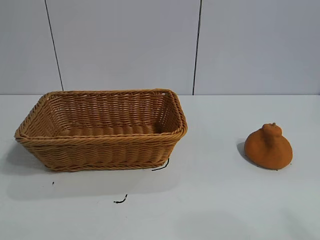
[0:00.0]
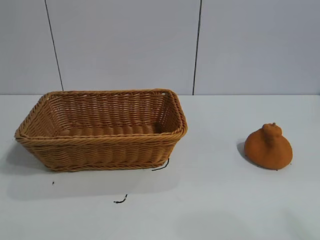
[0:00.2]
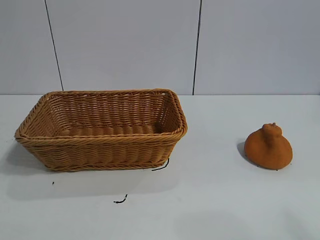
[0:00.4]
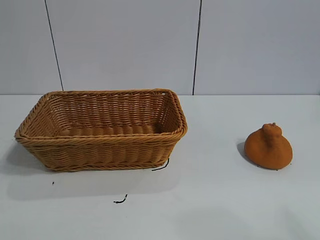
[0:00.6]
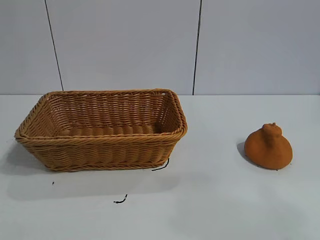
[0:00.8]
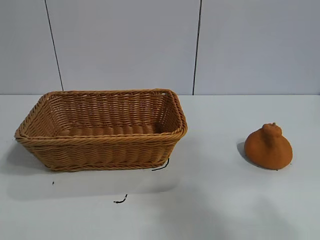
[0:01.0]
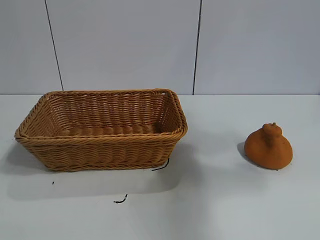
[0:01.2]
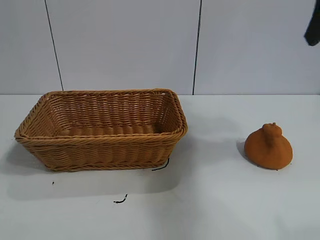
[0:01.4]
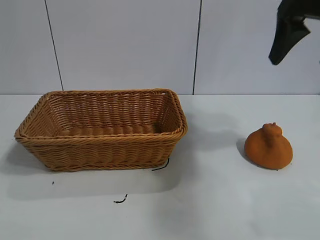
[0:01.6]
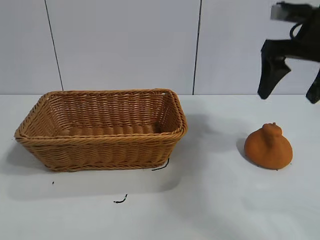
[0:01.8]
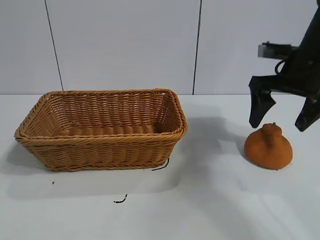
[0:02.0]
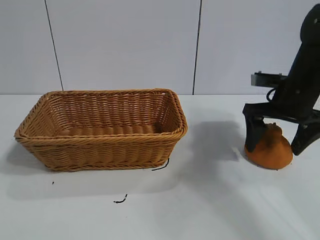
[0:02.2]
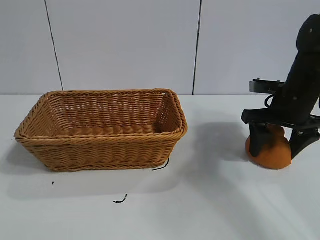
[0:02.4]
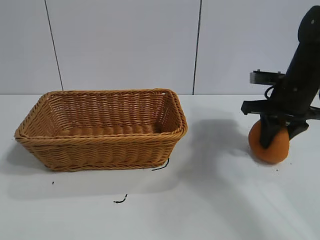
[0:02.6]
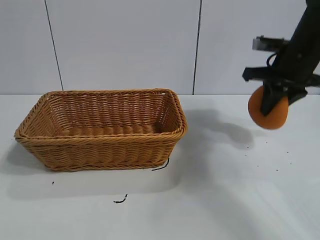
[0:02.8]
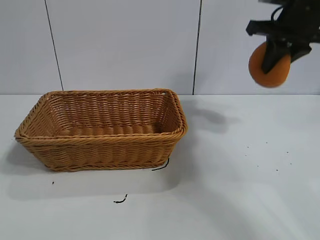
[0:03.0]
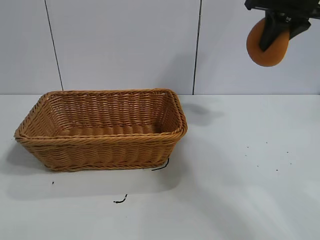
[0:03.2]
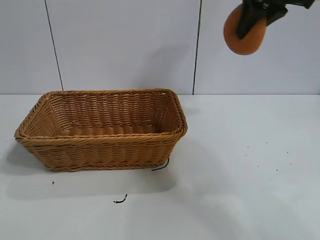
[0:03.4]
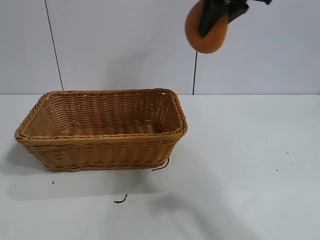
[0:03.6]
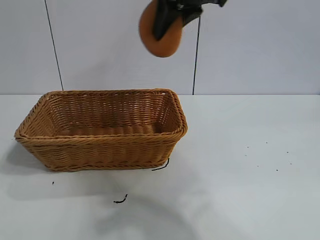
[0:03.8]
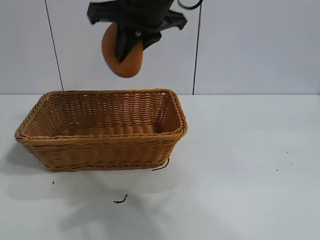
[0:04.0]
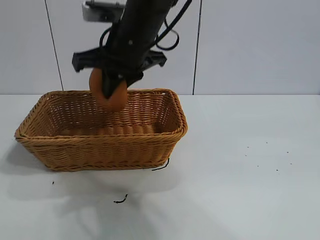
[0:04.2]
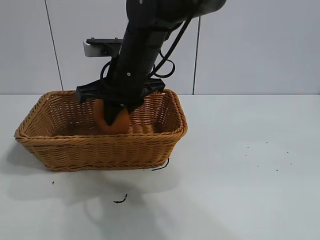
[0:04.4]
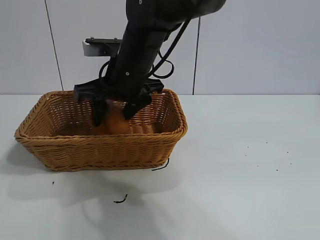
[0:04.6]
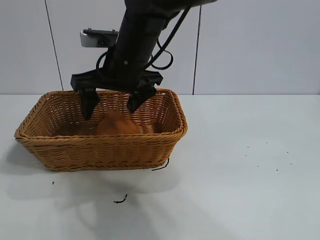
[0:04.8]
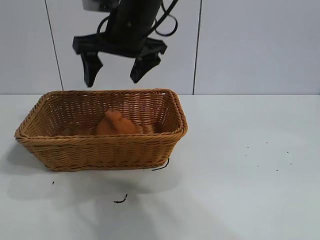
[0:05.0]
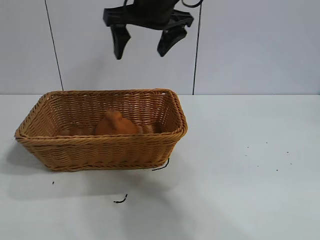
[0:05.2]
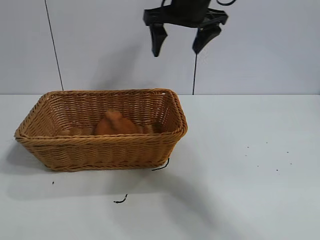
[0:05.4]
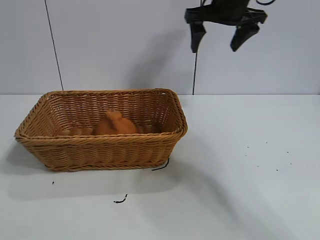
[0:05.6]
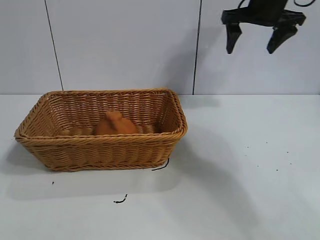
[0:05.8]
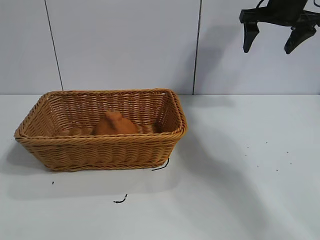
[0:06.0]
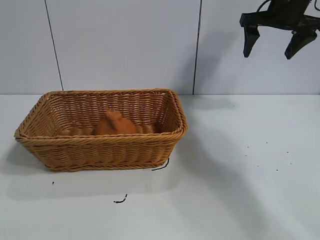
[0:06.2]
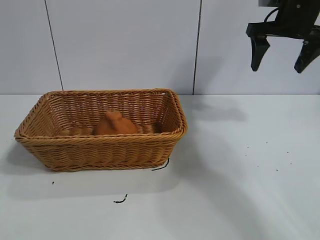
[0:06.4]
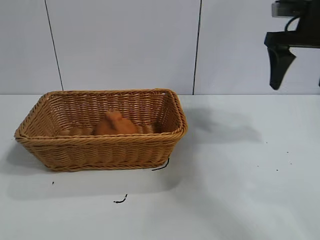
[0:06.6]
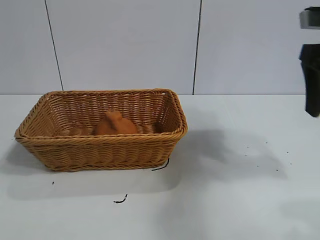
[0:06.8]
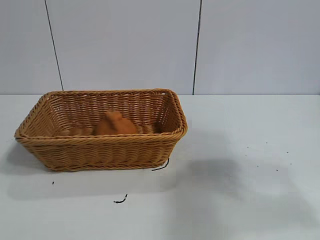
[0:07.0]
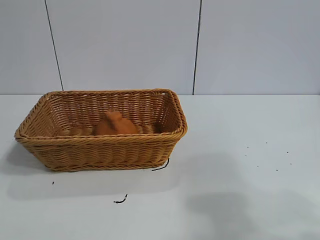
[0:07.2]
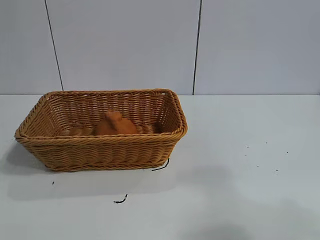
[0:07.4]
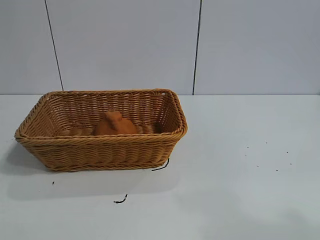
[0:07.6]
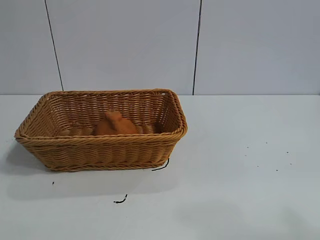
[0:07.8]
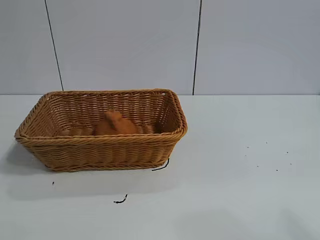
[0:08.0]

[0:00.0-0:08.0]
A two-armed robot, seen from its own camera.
Task of the whole recording: pick up the orange and put it into the basket.
Step, 0:00.6 to 0:02.6: Grasp the orange with right gripper.
Step, 0:02.8 to 0:04.6: Place the orange in the basket with right gripper.

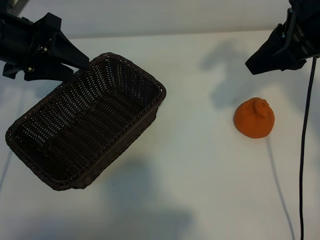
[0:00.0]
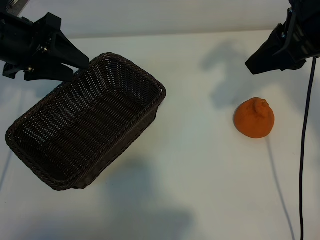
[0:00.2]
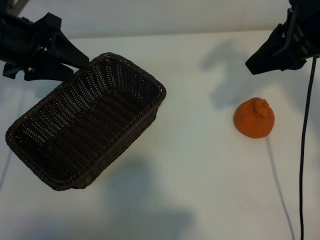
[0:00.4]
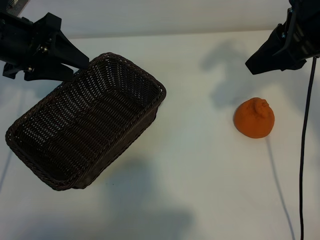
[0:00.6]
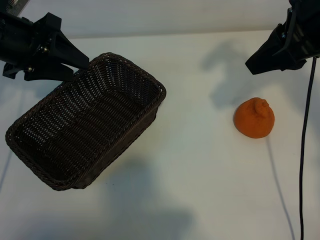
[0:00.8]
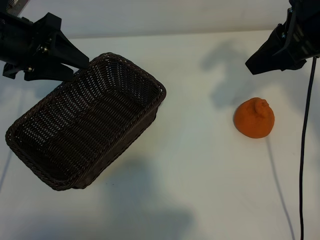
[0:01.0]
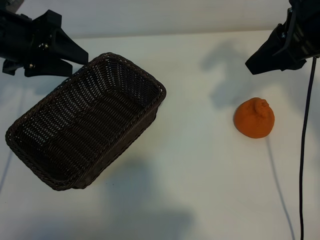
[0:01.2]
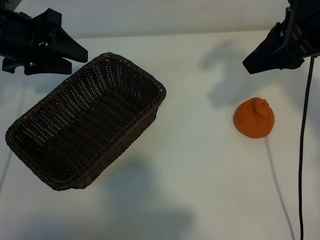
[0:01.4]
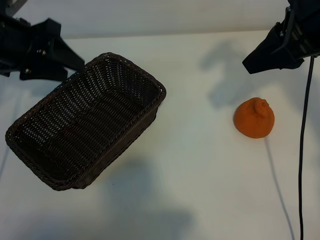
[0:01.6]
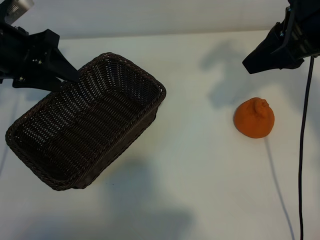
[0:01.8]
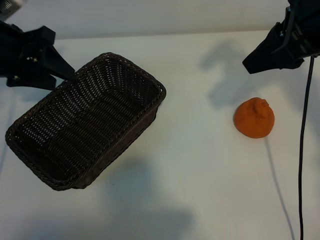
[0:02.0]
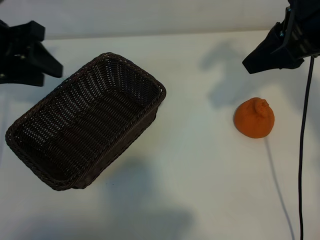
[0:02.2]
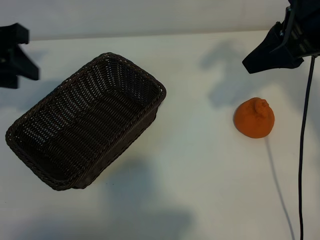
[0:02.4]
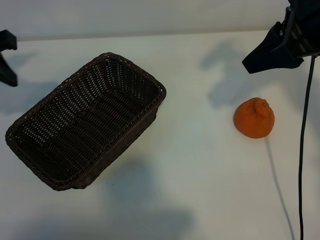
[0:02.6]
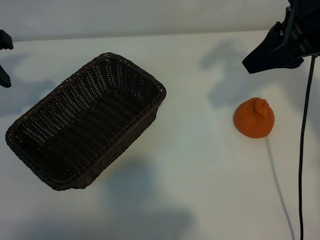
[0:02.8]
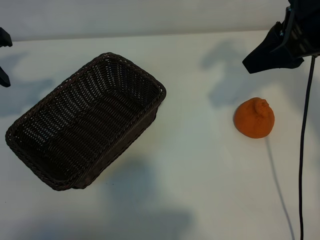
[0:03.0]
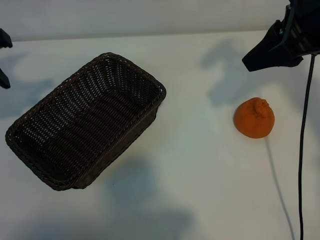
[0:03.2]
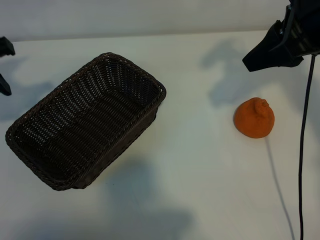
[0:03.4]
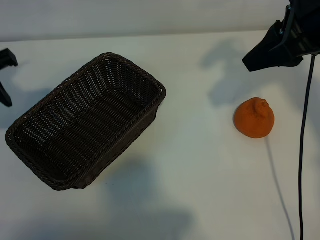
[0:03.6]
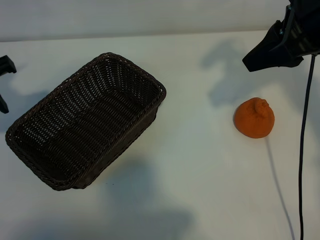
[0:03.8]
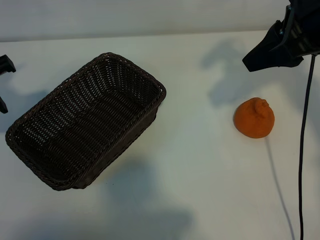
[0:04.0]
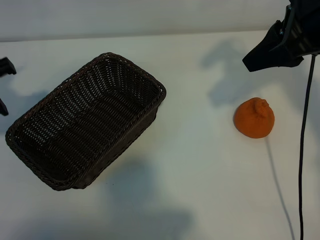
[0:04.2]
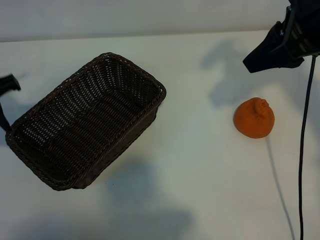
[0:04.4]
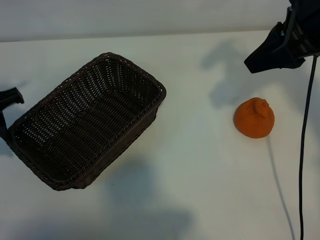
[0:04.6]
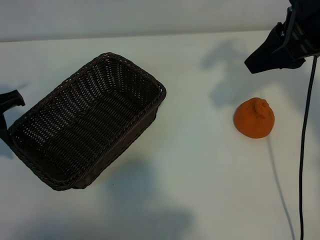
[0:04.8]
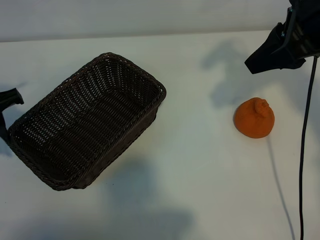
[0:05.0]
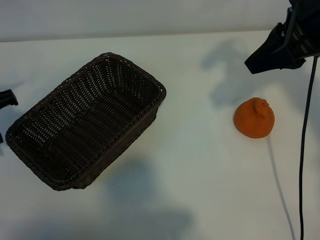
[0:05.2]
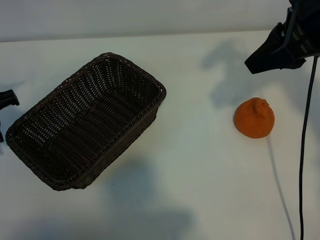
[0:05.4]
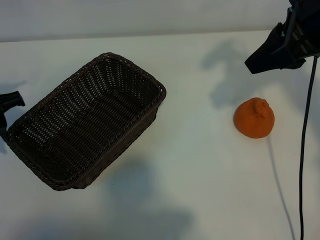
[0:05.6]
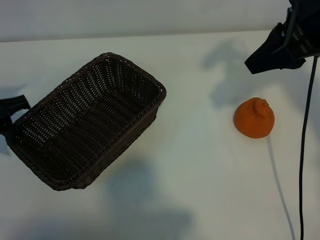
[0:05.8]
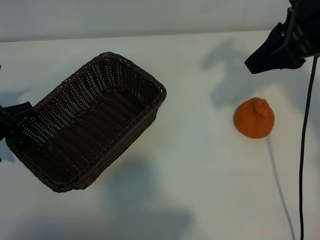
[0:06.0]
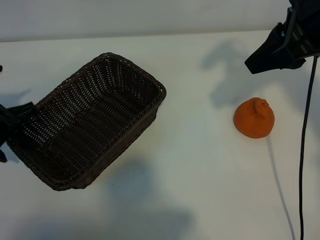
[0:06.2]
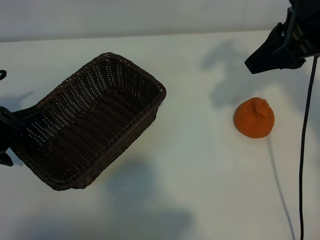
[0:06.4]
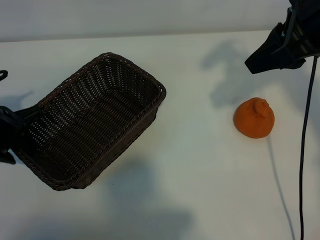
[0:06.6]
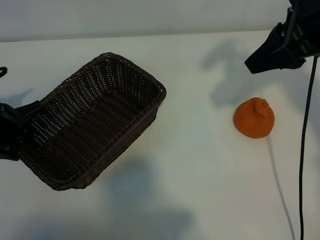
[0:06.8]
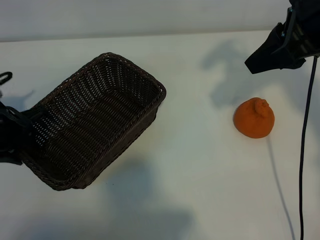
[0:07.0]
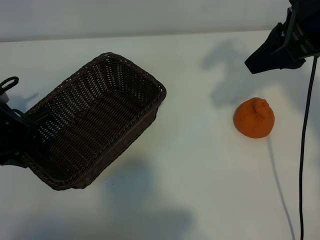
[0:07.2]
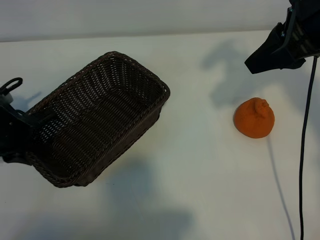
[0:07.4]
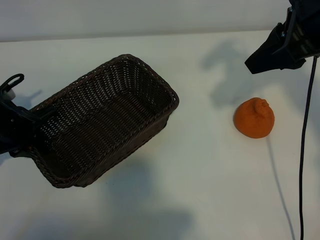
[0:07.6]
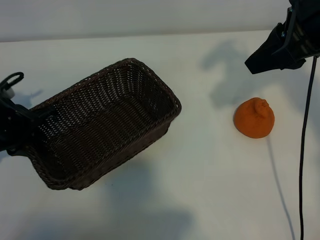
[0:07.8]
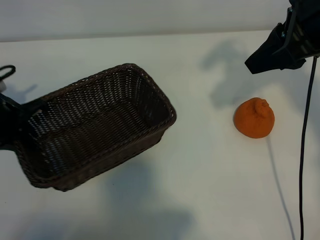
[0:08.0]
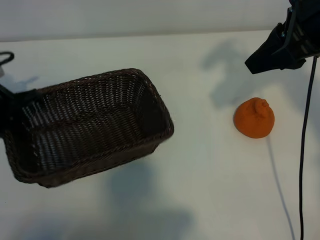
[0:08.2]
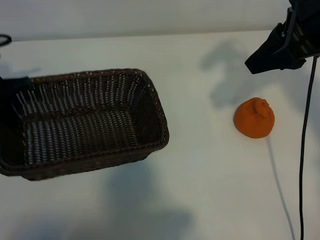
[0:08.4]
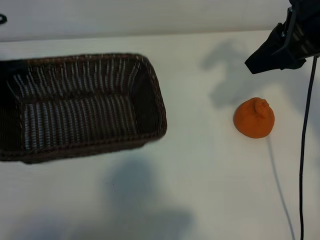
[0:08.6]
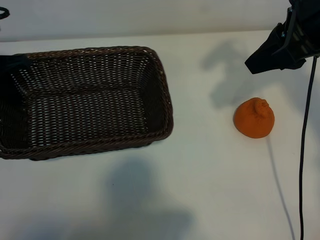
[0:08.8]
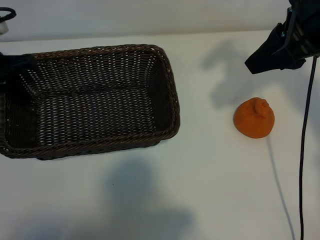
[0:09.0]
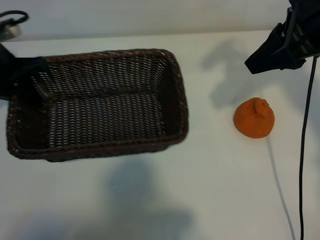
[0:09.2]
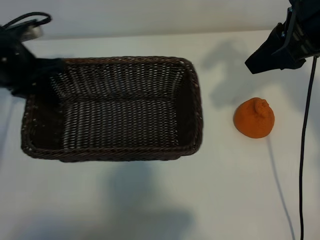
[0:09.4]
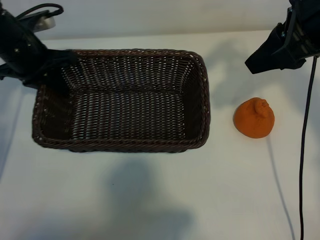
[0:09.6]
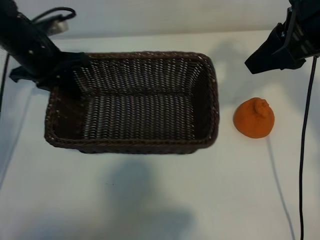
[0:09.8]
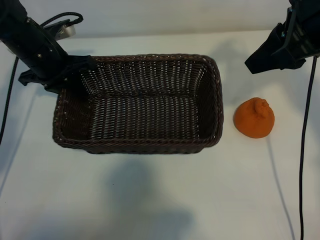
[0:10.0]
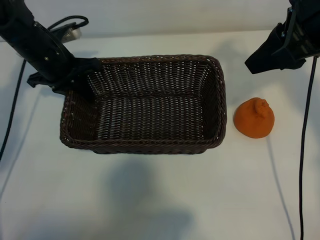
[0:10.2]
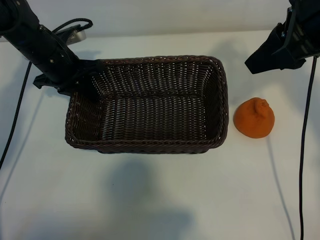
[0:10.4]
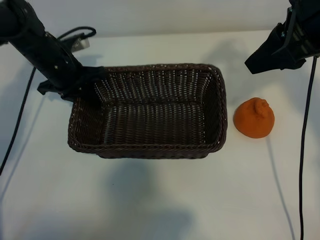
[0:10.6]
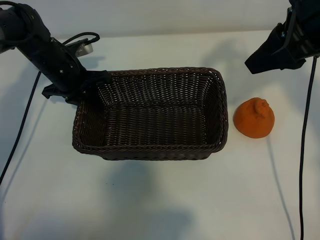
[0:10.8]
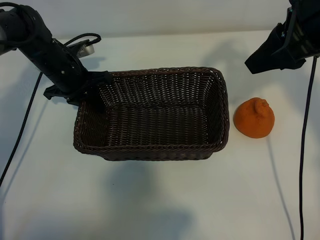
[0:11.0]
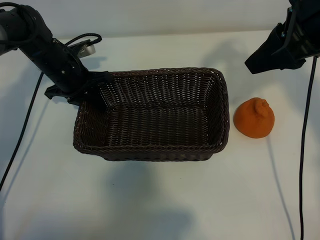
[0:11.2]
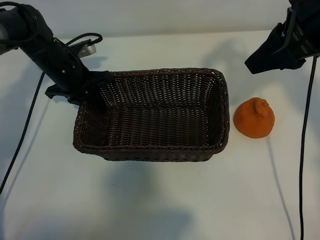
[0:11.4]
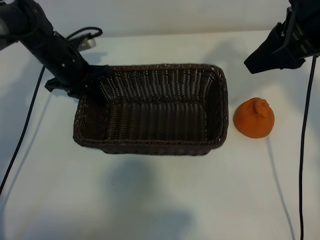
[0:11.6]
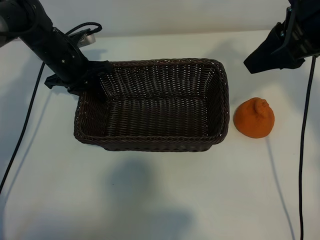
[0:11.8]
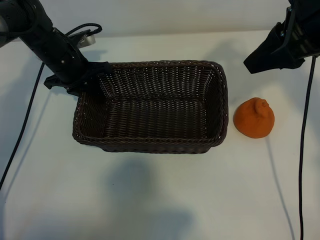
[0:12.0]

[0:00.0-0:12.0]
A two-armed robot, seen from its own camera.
Task of the whole recording: pick up the orange and put it into the basket.
Step, 0:01.0 to 0:07.6: Grasp the basket with left gripper.

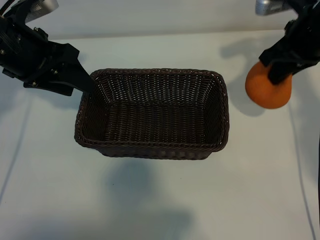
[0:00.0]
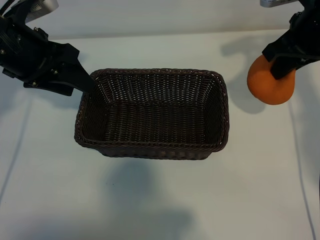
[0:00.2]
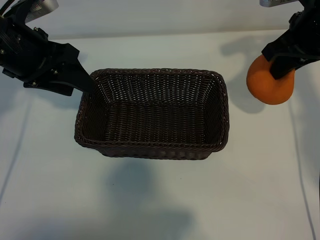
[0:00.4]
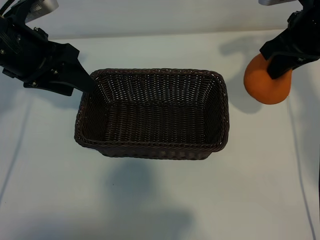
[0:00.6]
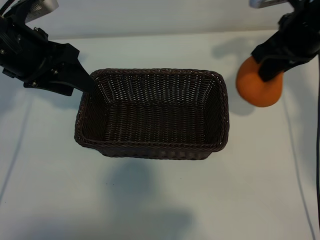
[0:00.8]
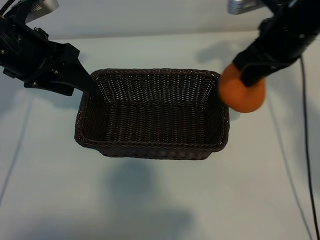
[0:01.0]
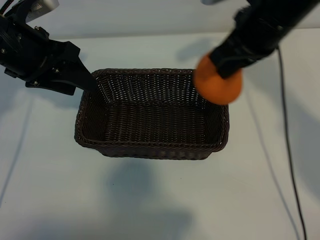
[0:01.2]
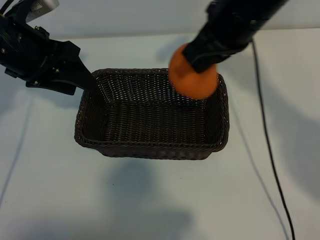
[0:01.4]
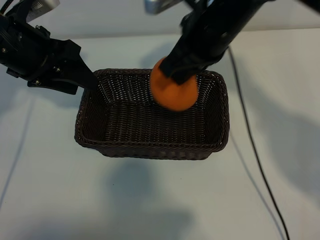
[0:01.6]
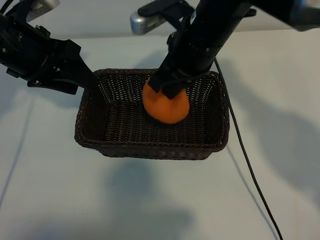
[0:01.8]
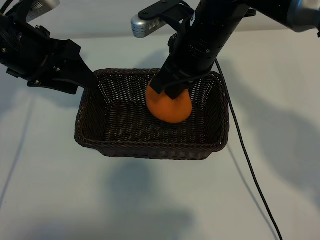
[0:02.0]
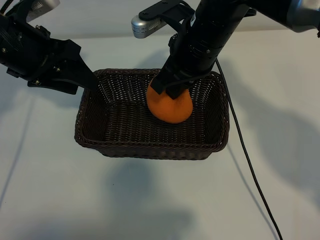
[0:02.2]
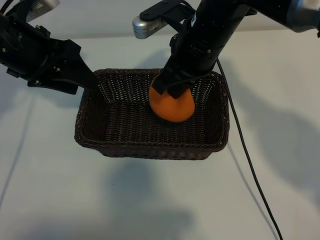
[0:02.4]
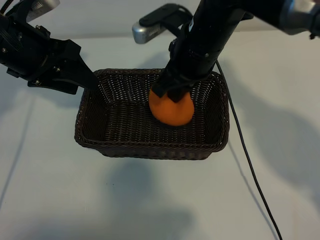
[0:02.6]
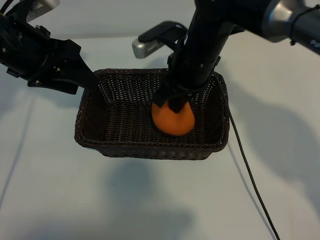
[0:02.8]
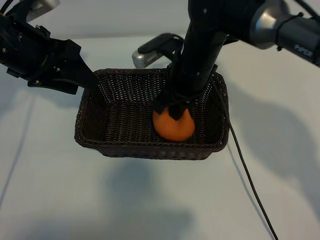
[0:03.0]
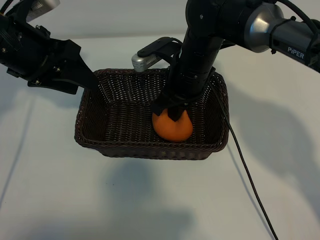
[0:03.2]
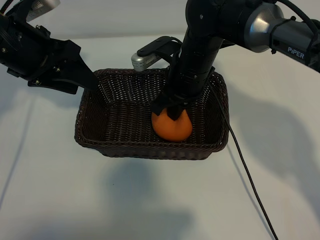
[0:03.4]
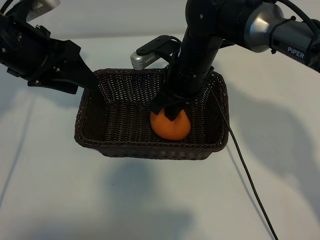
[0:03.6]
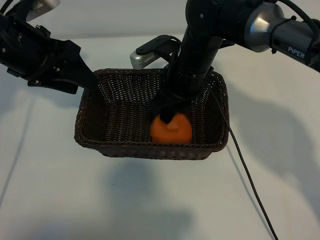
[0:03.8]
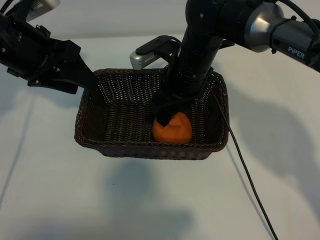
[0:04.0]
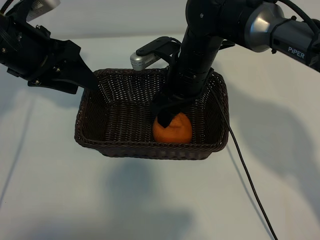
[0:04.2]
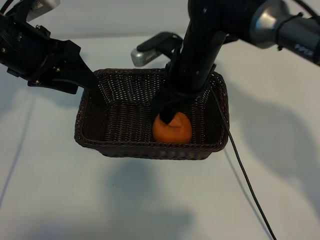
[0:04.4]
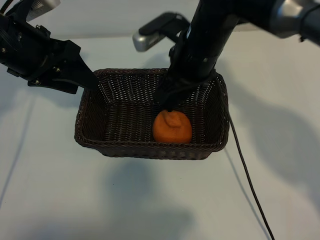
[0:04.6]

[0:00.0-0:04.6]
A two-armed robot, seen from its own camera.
Task of the whole recording: pick up the orange and put it into the basket.
Step, 0:00.0 to 0:03.8: Place the orange in the basket with right gripper.
